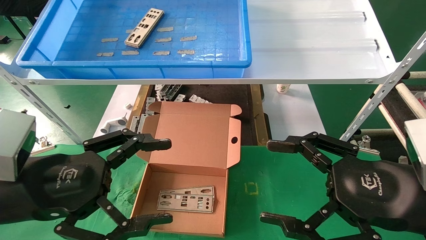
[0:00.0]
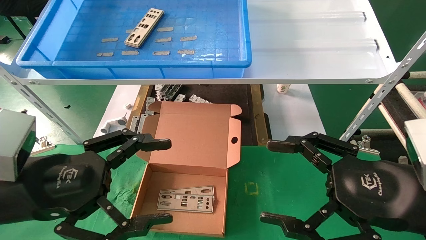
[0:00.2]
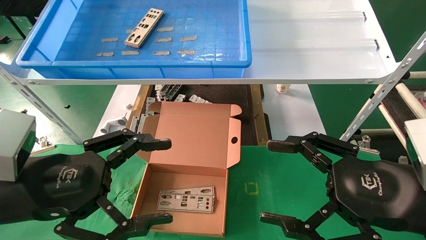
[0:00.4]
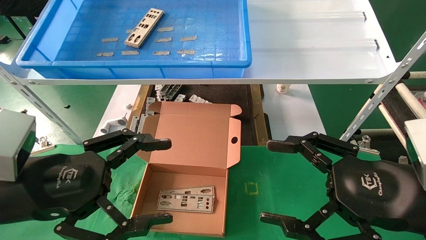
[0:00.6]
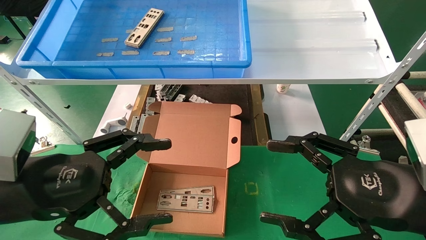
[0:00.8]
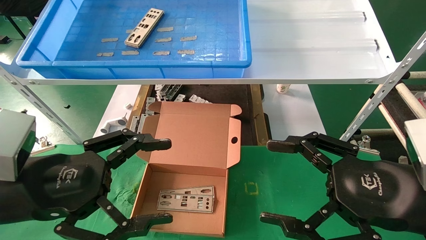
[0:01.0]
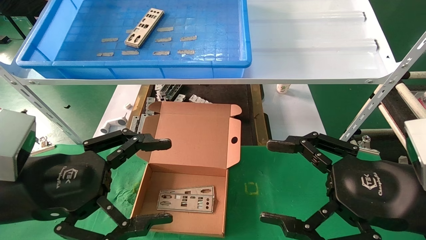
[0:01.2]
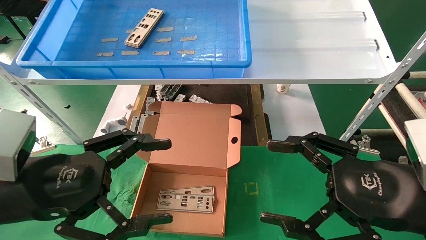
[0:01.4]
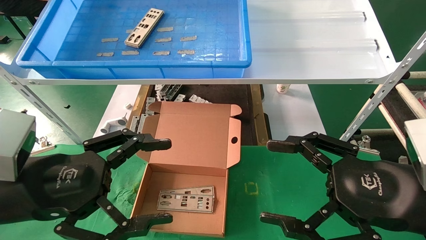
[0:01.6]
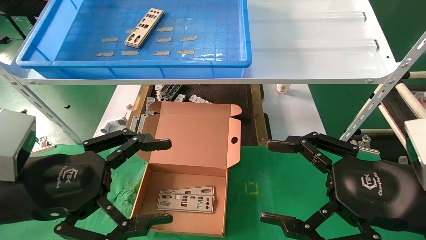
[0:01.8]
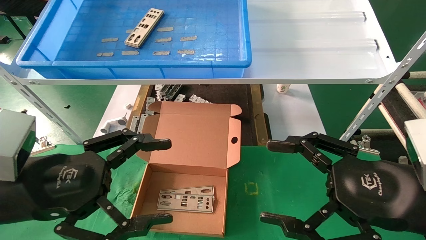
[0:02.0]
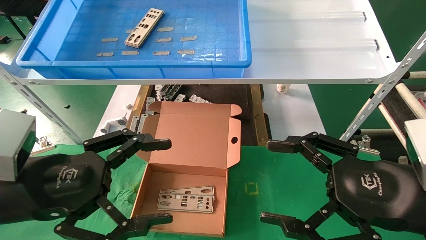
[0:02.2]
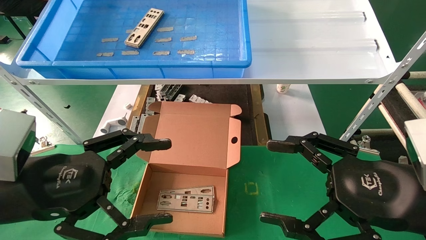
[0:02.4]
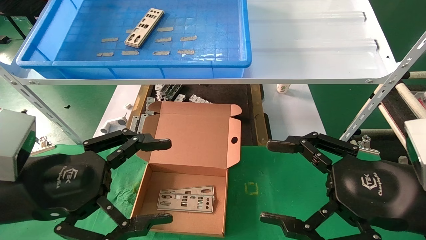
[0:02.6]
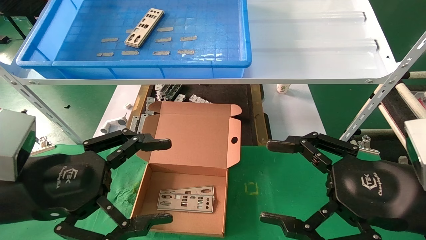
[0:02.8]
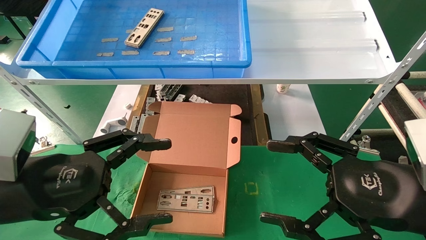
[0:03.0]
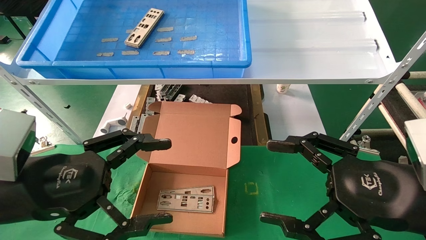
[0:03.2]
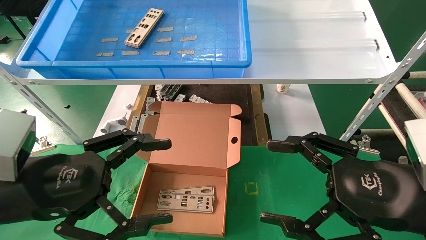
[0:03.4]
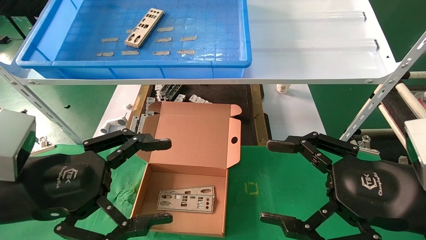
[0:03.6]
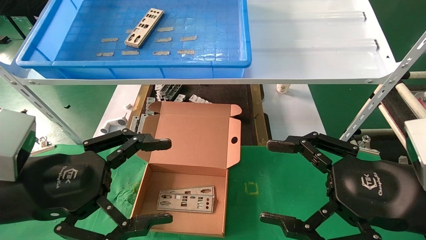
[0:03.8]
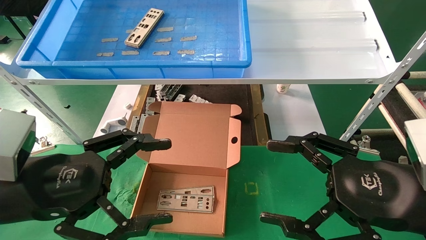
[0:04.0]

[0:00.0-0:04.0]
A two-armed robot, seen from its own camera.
Task of the whole recording: pick up the parts on the tray and put them in the cardboard box.
0:00.0 to 0:04.0: The two grippers keep their place.
